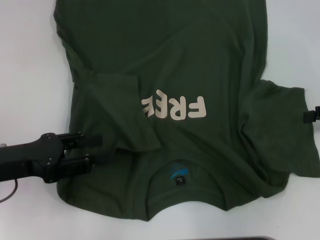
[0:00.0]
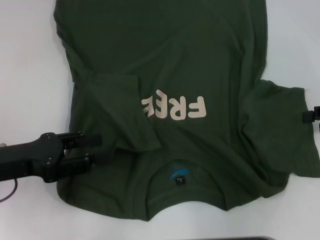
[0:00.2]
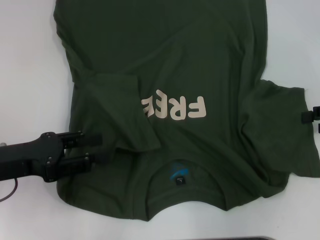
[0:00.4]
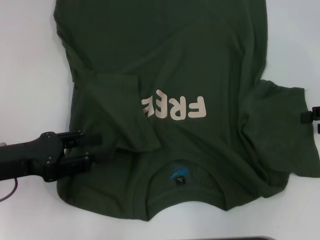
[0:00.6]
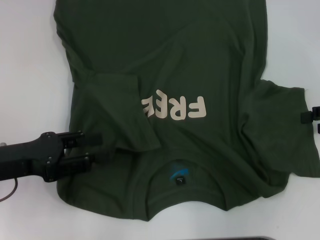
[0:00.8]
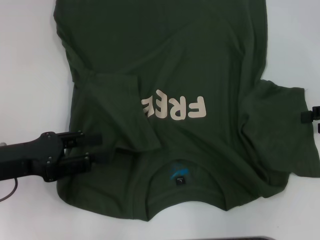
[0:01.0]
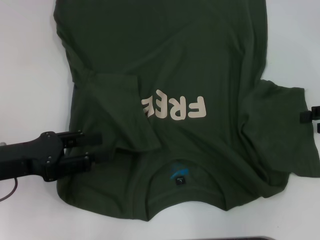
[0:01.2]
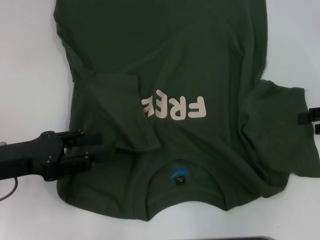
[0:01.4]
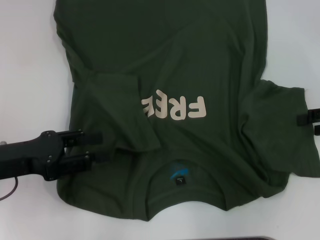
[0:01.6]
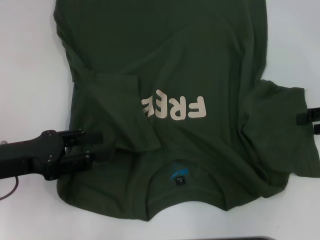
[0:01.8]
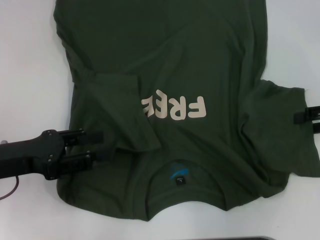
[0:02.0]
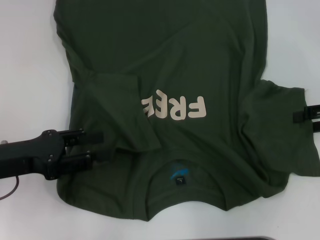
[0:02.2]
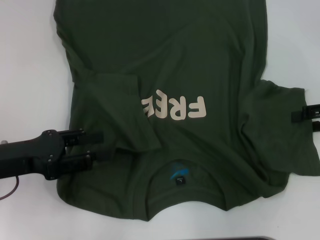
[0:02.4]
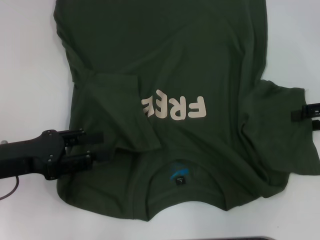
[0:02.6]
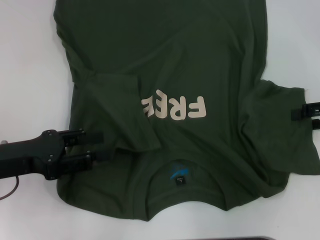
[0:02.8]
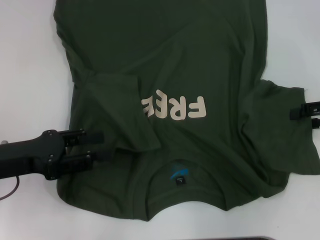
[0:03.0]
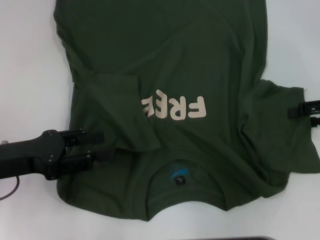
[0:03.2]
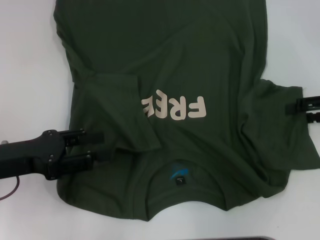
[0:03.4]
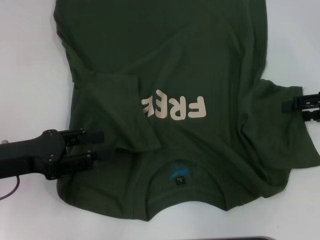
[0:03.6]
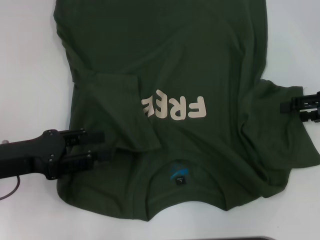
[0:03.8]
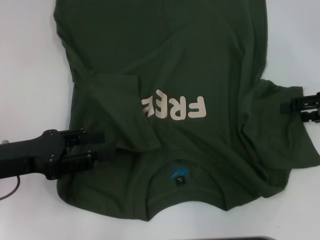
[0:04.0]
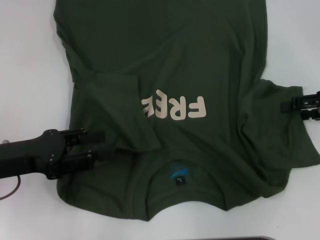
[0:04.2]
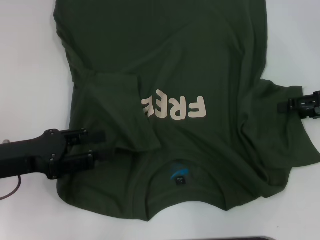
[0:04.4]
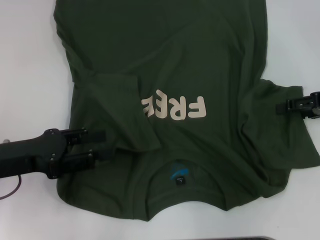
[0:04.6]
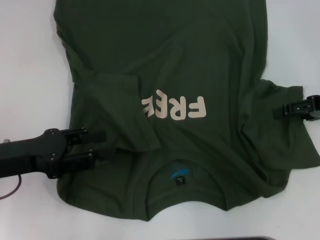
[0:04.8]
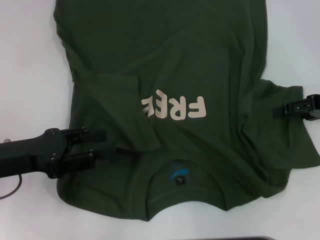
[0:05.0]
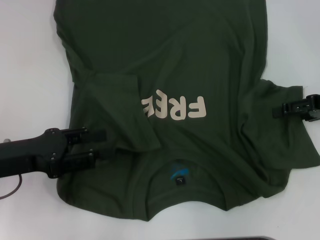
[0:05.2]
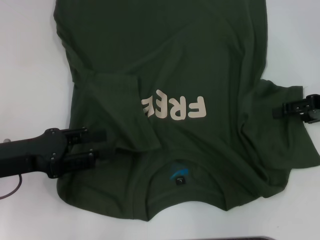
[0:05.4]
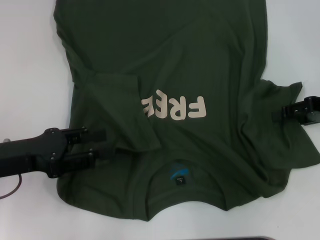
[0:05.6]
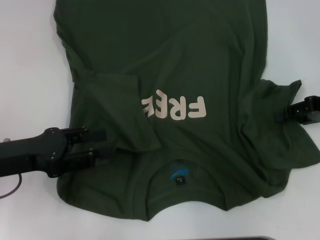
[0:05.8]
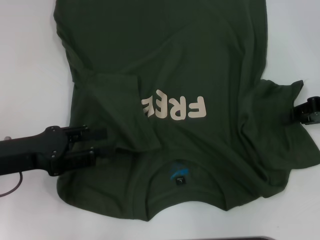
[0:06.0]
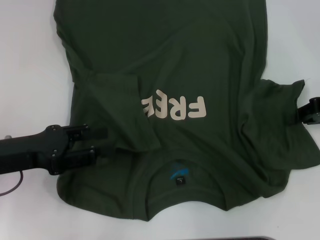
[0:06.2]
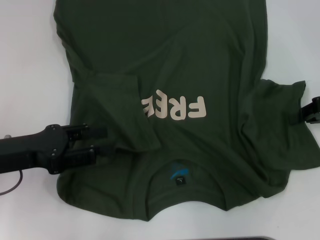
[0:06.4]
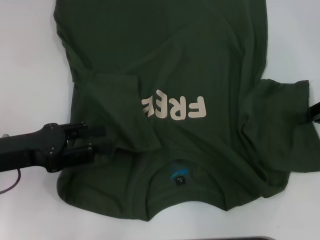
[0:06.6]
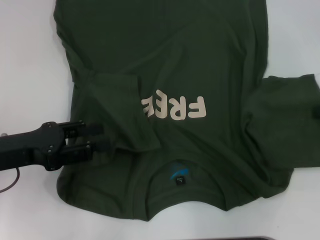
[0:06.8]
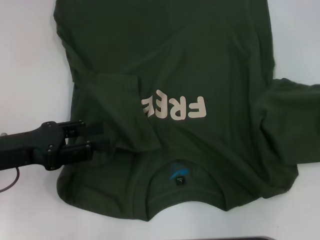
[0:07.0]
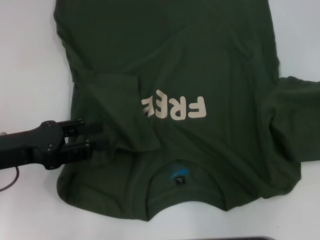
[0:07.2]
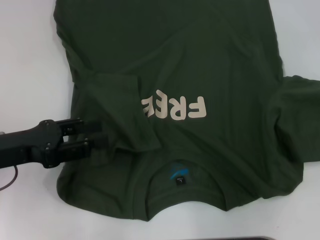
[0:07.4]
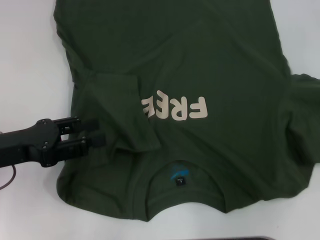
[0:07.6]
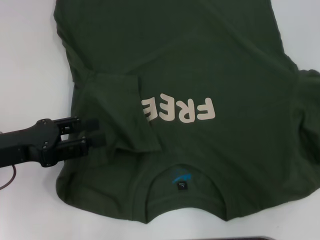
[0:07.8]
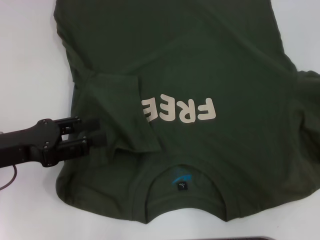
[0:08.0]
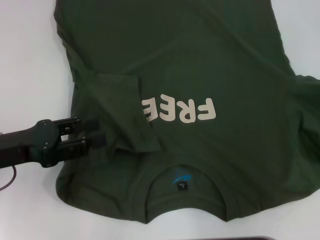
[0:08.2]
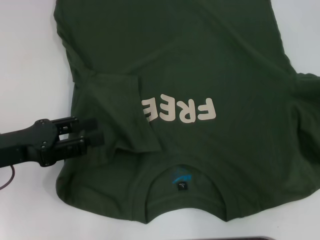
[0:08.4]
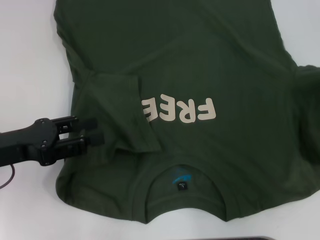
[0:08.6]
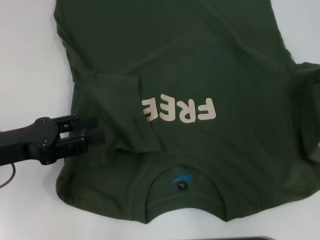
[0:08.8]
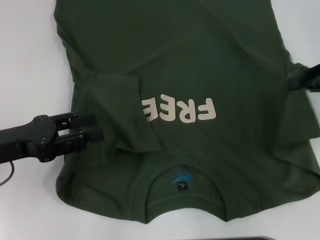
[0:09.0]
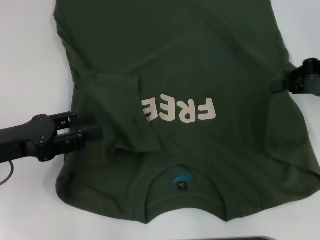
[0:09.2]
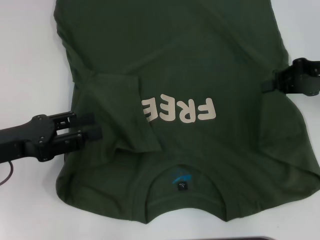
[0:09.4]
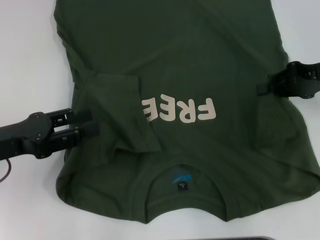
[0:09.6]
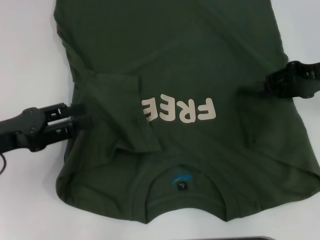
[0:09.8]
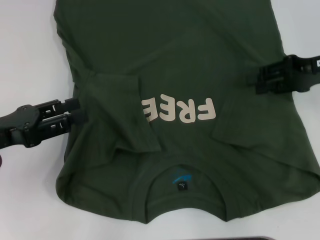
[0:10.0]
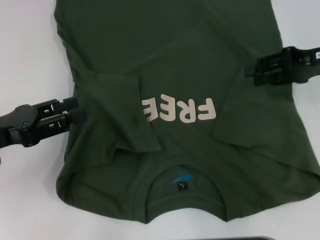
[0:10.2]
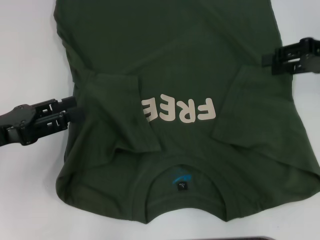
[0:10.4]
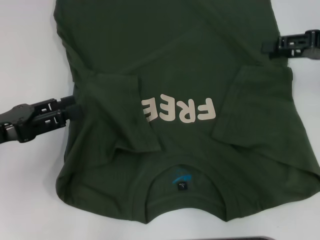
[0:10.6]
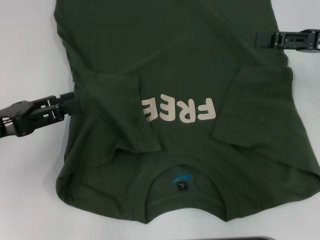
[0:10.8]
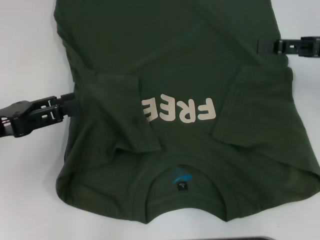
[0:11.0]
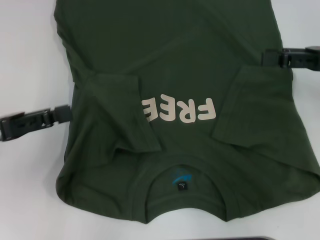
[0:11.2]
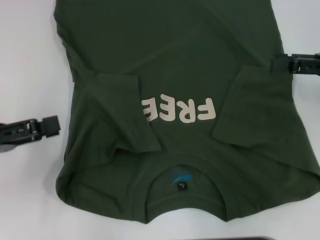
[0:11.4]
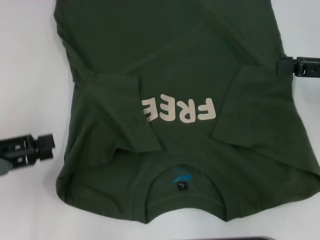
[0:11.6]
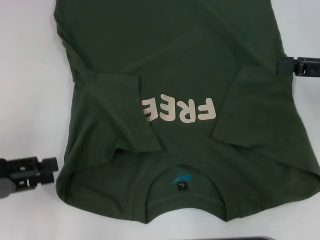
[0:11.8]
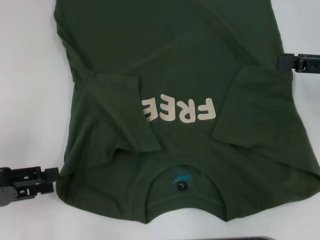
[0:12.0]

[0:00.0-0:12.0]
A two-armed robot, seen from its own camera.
Step, 0:00.0 to 0:10.2: Fold the bottom right sleeve with your right hand.
0:00.0 to 0:01.6: Both grippers stay put.
0:01.6 to 0:03.0: Both grippers stay put.
0:03.0 to 0:04.4: The grippers stay close to where they were, moving slightly.
0:04.4 to 0:06.0: The right gripper closes up.
0:06.0 to 0:07.6: The right gripper is displaced to the right and upward by roughly 10 cm, and closes up.
0:07.6 to 0:09.0: The right gripper shifts roughly 5 cm to the left.
0:09.0 to 0:10.4: The right gripper opens.
0:10.4 to 0:12.0: The right gripper moves backward, roughly 5 cm, and opens, while the left gripper moves about 5 cm.

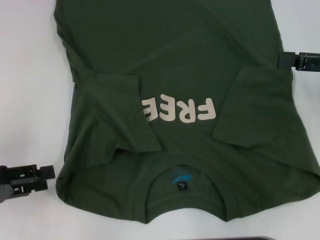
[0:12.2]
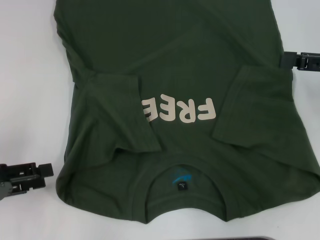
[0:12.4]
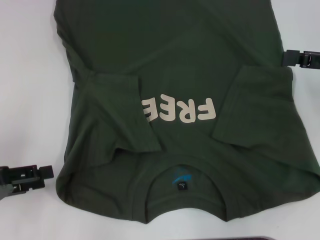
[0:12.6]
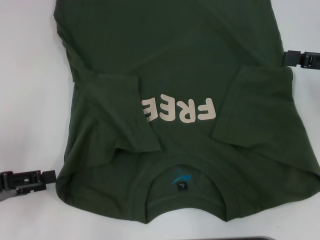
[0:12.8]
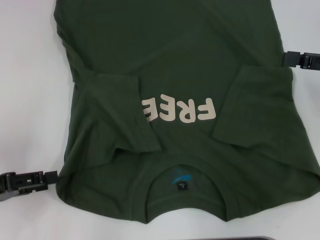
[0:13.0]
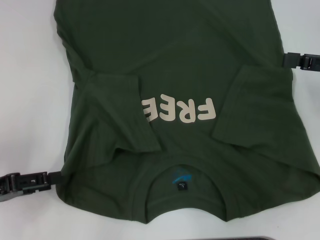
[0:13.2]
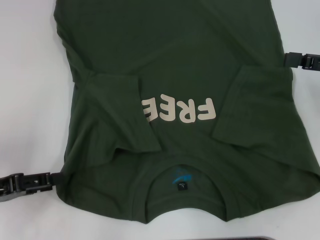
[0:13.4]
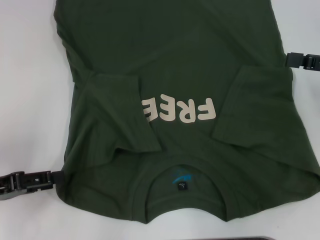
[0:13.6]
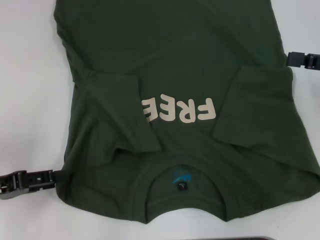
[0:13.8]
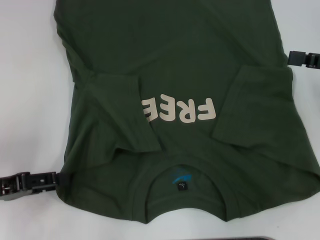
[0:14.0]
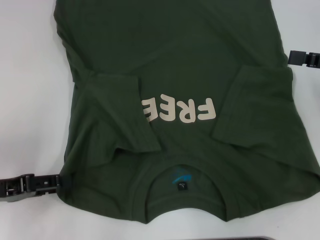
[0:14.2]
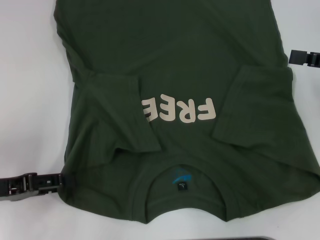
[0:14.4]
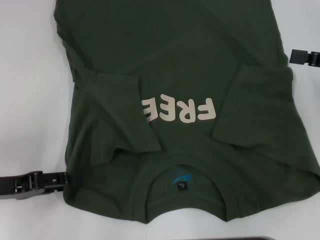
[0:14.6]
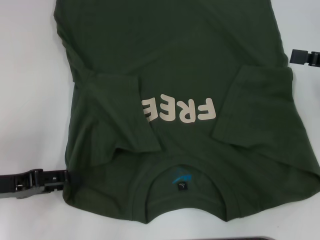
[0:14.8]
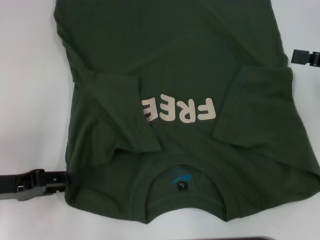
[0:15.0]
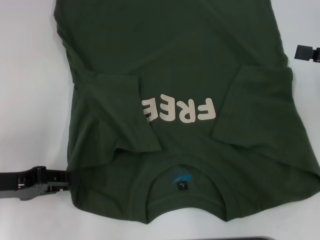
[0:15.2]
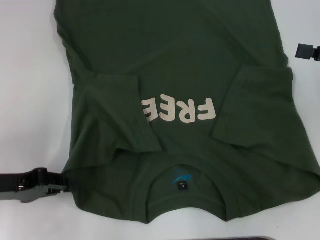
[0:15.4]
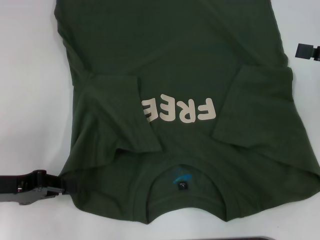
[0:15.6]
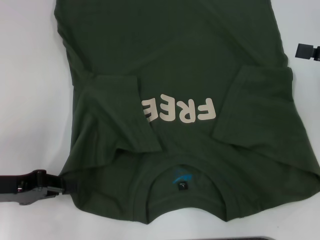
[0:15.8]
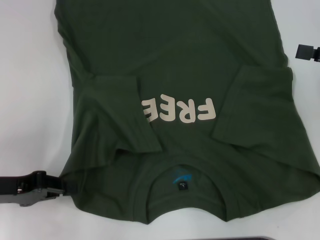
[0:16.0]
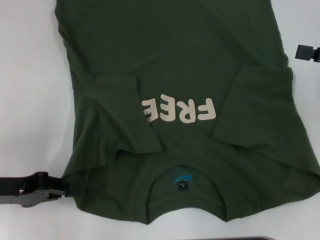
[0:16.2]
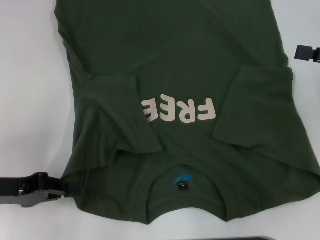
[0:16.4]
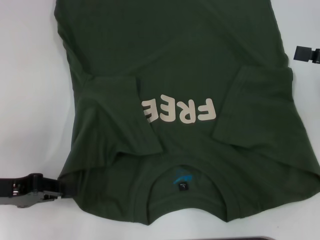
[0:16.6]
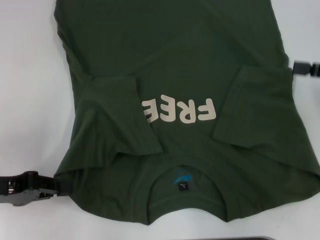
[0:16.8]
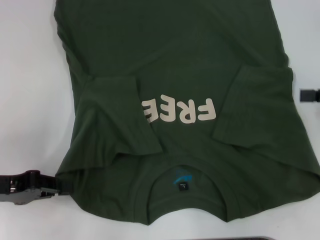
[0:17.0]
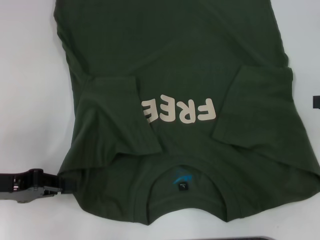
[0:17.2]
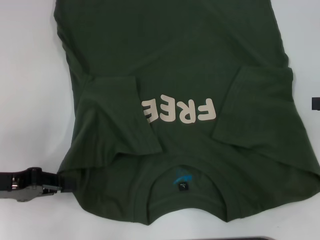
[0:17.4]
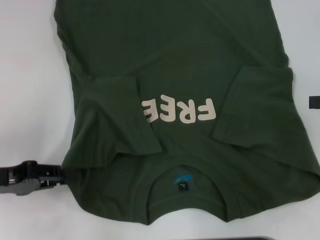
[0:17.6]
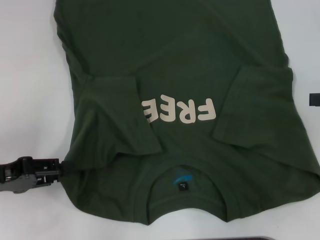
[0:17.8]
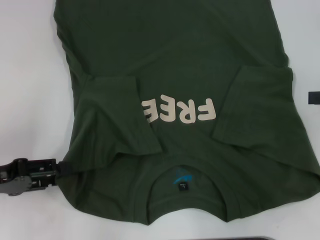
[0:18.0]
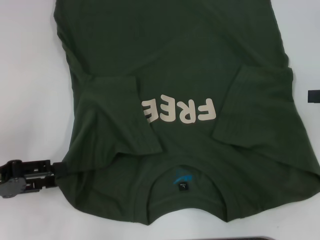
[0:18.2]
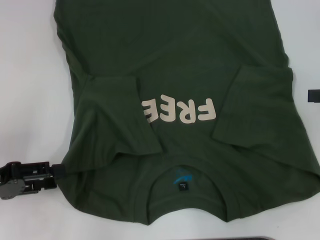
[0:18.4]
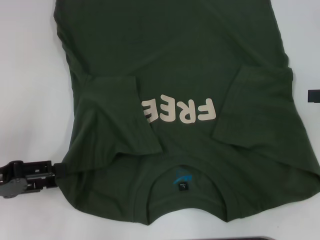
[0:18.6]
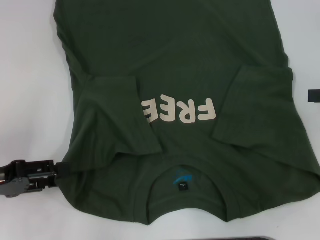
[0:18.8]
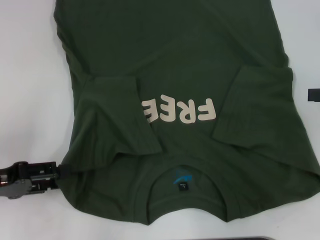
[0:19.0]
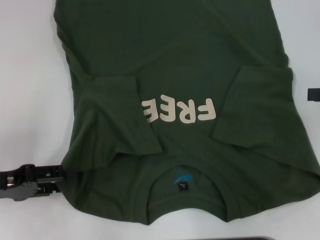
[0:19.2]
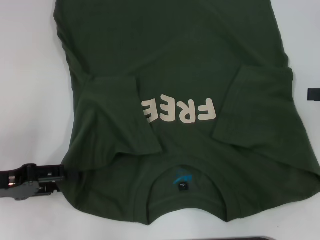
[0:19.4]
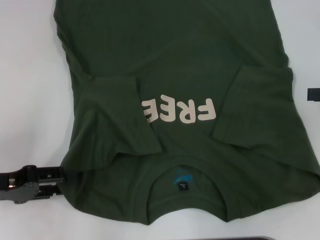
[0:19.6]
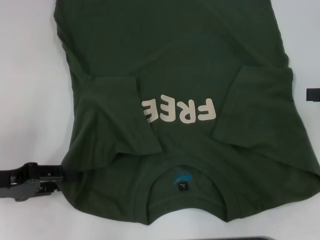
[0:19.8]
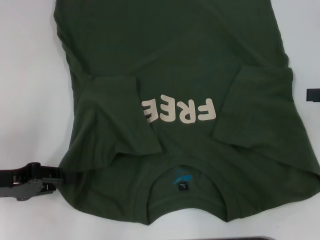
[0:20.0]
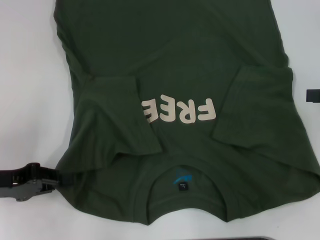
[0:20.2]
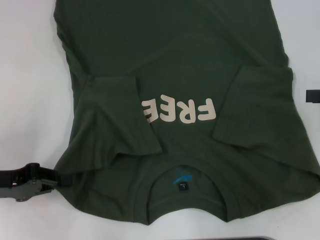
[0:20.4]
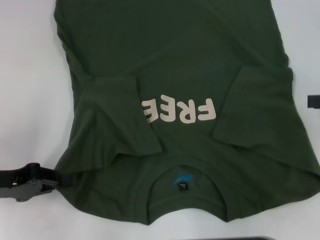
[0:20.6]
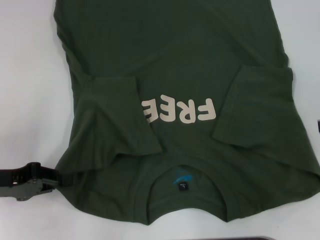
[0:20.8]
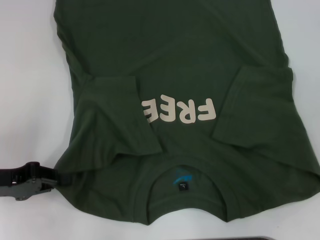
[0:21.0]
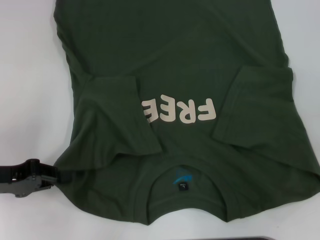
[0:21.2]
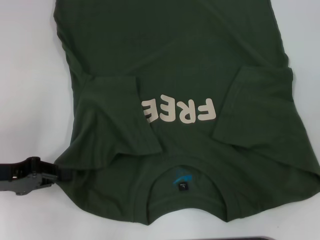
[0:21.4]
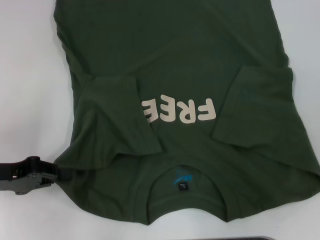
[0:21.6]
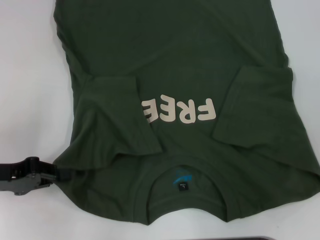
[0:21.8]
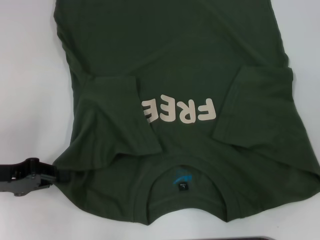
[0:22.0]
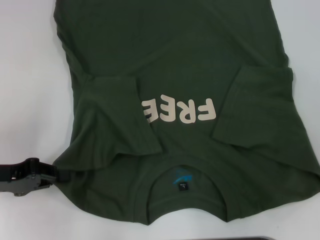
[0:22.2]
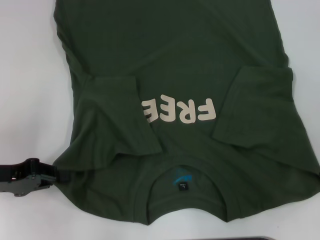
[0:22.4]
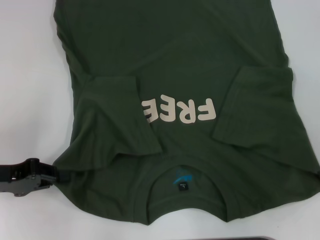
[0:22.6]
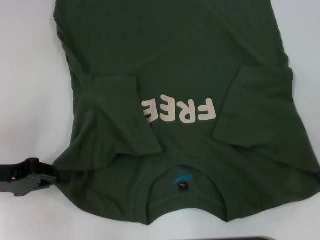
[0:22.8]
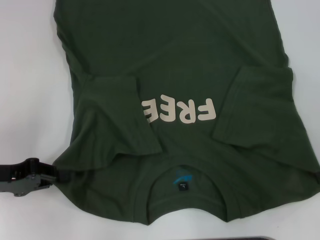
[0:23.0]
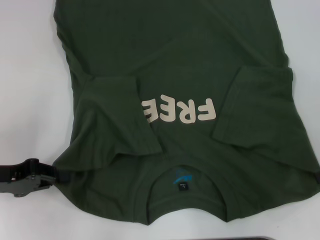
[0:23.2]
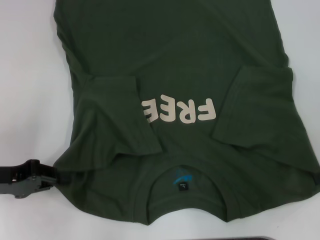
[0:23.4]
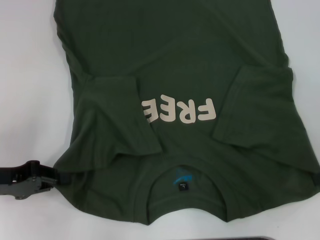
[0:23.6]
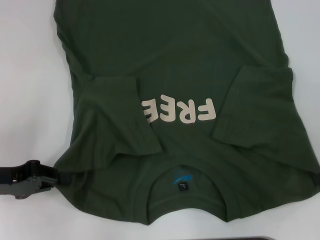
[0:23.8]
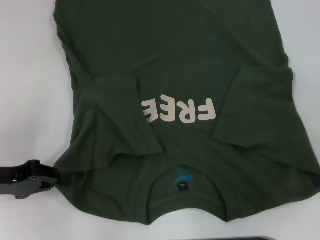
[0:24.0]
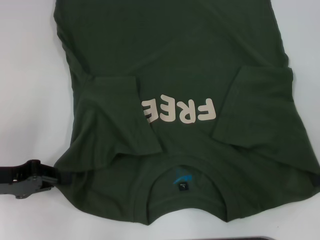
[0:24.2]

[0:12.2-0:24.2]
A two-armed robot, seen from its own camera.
Step, 0:12.2 to 0:20.8: Grab the bottom left corner with your left hand.
0:12.2 to 0:15.2: The grippers stay close to where they were, moving slightly.
0:15.2 to 0:16.6: The left gripper closes.
0:16.6 to 0:18.2: The left gripper opens its fingers.
0:18.2 to 0:19.8: The grippers make only small movements.
0:19.8 to 0:21.2: The left gripper closes up.
0:22.6 to 0:24.2: Both grippers stay put.
